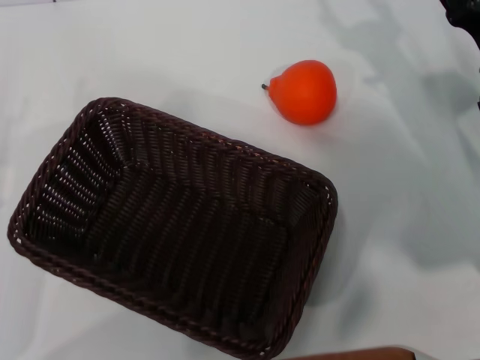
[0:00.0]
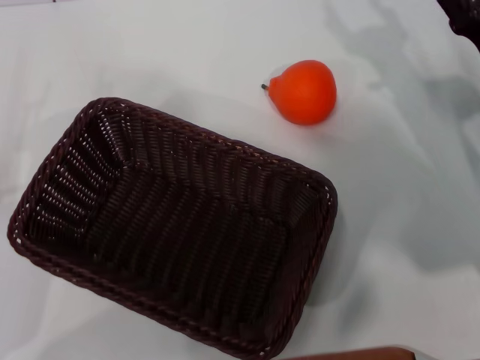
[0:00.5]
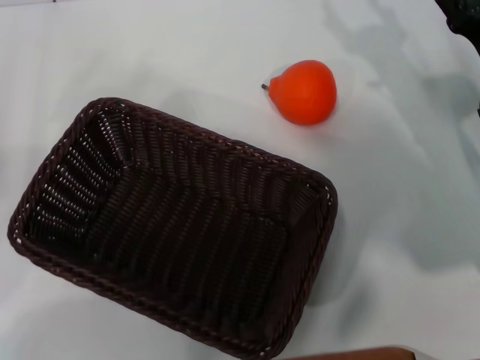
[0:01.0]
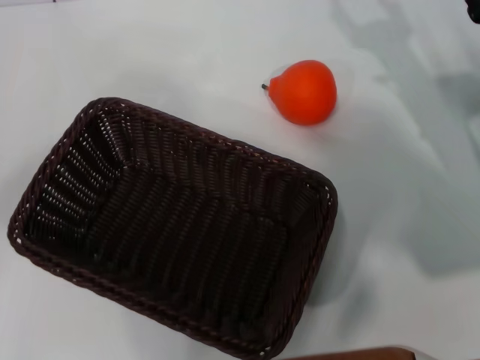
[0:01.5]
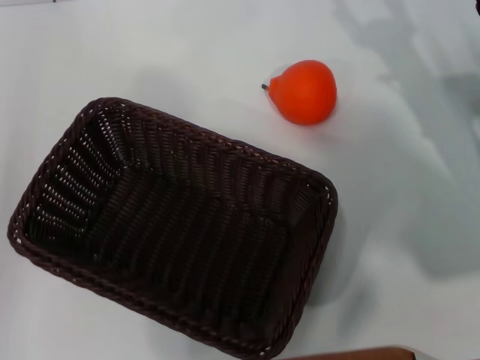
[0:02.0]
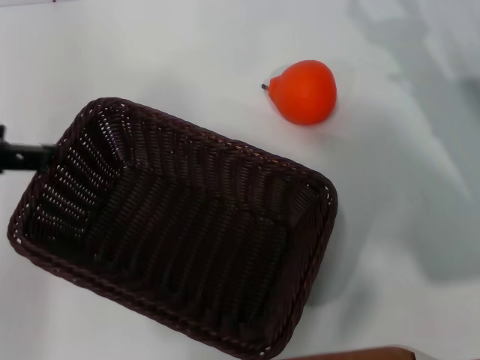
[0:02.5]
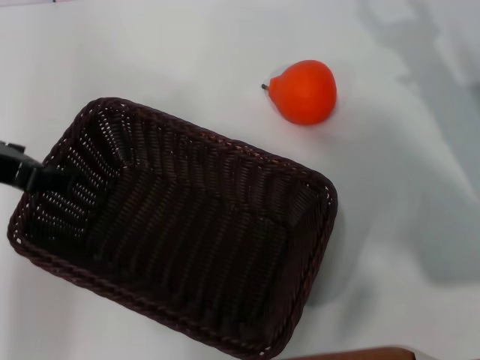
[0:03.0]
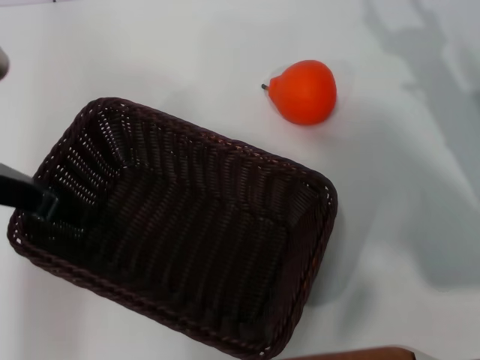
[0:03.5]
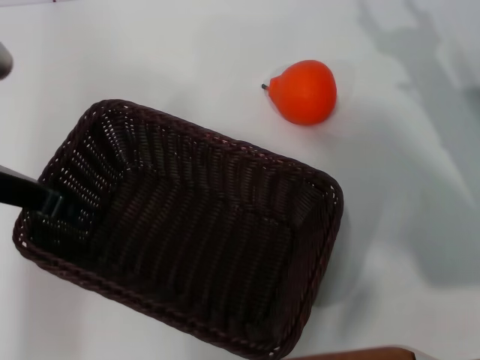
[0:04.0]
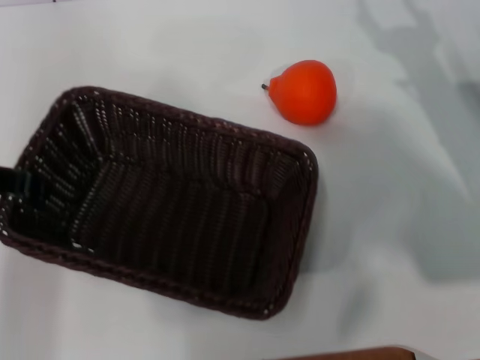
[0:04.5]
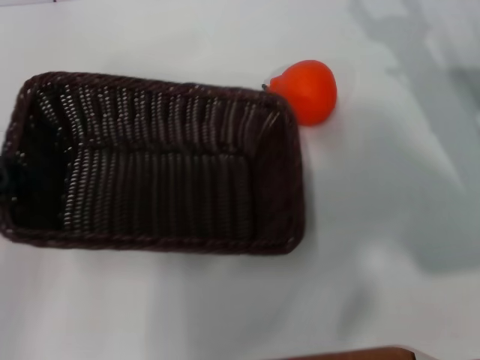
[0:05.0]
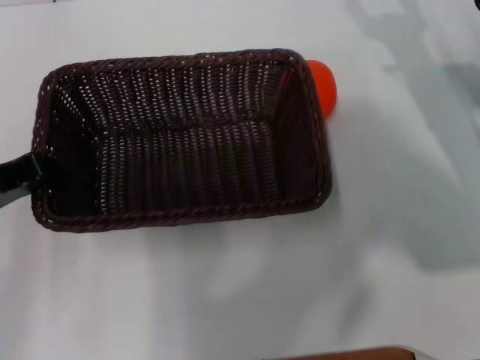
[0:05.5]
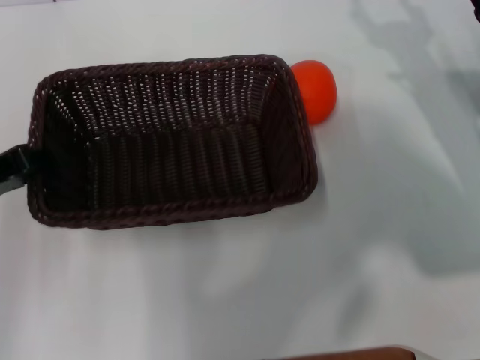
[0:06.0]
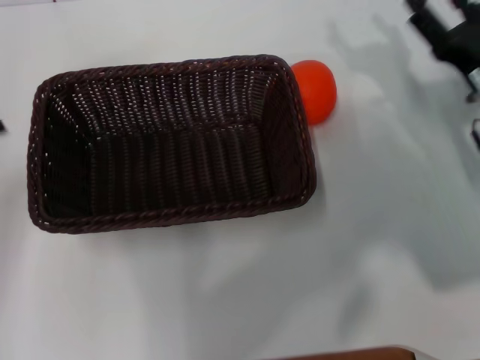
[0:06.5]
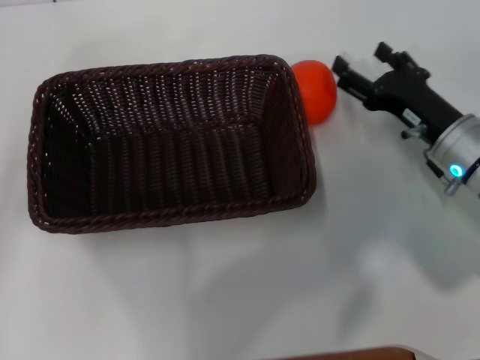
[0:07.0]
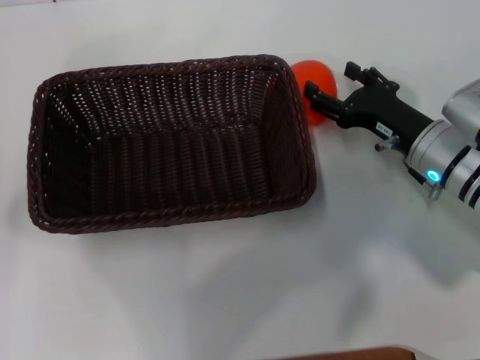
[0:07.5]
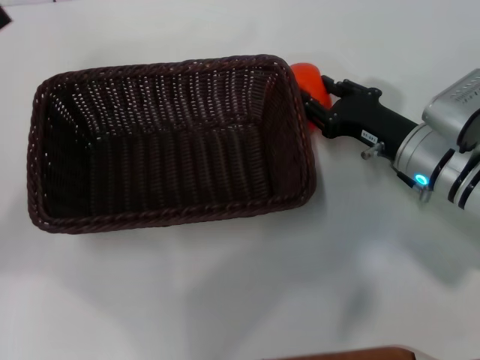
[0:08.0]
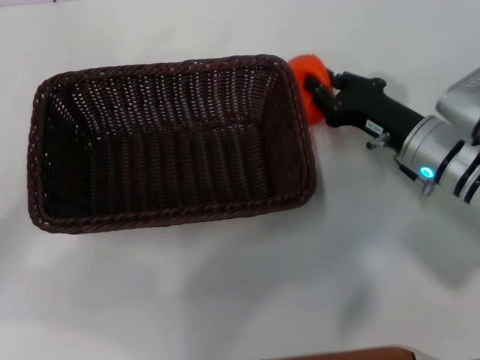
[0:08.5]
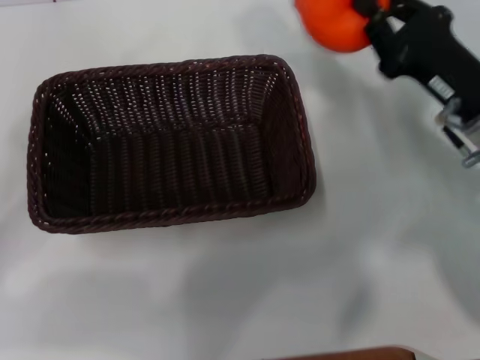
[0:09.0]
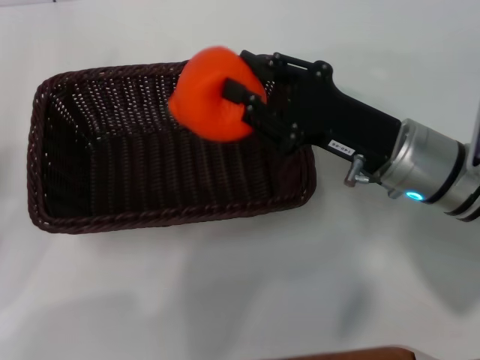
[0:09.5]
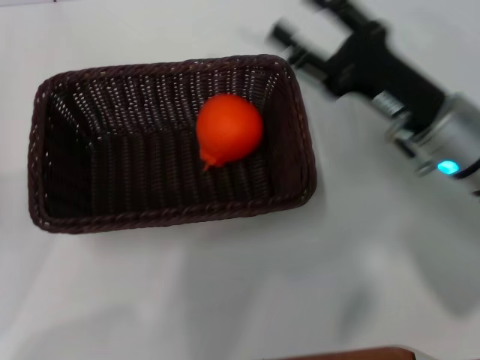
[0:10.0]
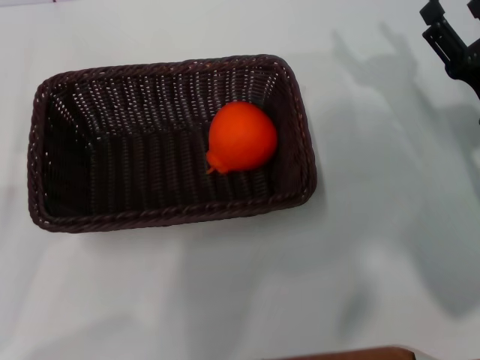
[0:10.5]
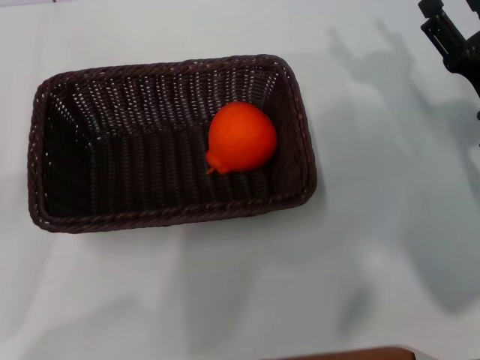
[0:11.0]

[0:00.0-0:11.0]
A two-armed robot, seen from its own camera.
Task of the whole recording: the left gripper pick up the black basket and place it horizontally in the middle of the table, the right gripper pick up the orange and place it into the black basket.
Step, 0:00.0 to 0:05.0: Pick up the dark basket with the left gripper.
Step, 0:05.5 to 0:06.0: Place the dark basket in the center of view with the left gripper.
Step, 0:06.5 to 0:08.5: Pick up the orange with the right gripper.
Step, 0:09.0 to 0:09.5: Place the orange into the dark basket with the right gripper.
0:00.0 to 0:02.0: The left gripper heads upward, covering about 20 cm.
0:02.0 to 0:03.5: The left gripper travels to the right and downward by some 10 cm.
0:03.5 to 0:05.5: The left gripper moves roughly 5 cm, and closes.
0:05.5 to 0:07.5: The right gripper is displaced to the left and downward by roughly 10 cm. The left gripper moves to the left, some 5 cm, and opens.
0:07.5 to 0:09.0: The right gripper heads upward, covering approximately 5 cm, and closes up; the left gripper heads downward, covering roughly 5 cm.
0:09.0 to 0:11.0: The left gripper is displaced downward by about 5 cm; the right gripper travels to the left and back again, roughly 5 cm each way, and opens.
